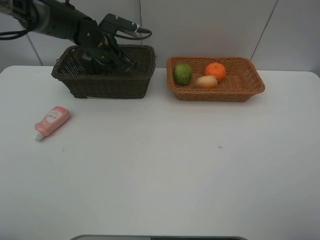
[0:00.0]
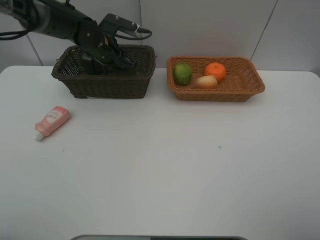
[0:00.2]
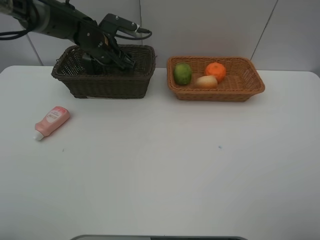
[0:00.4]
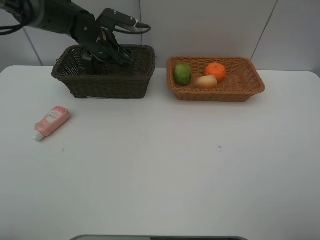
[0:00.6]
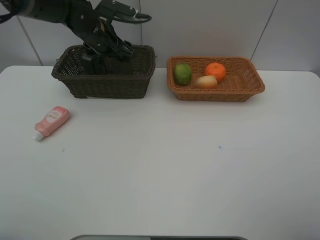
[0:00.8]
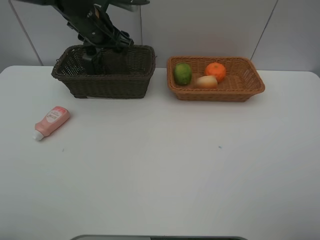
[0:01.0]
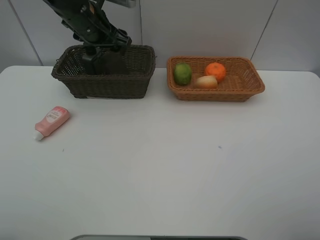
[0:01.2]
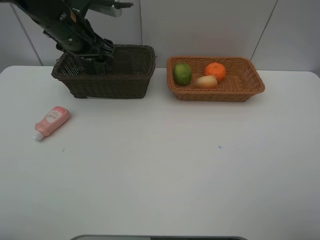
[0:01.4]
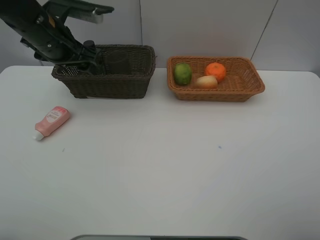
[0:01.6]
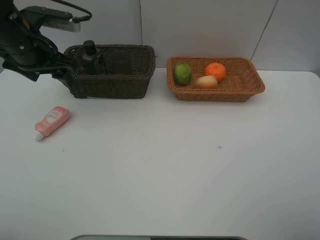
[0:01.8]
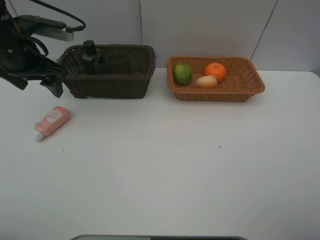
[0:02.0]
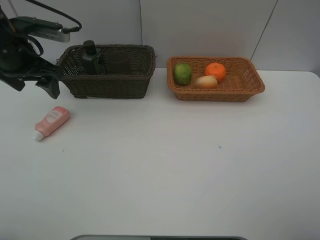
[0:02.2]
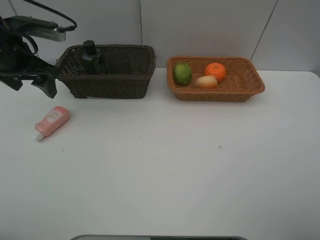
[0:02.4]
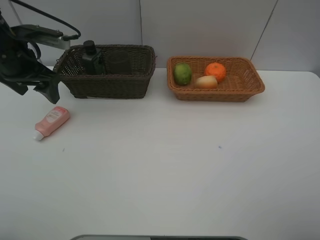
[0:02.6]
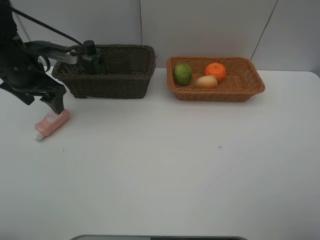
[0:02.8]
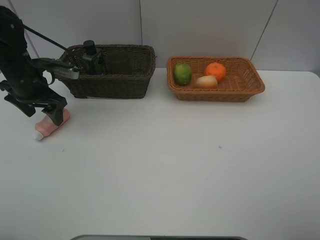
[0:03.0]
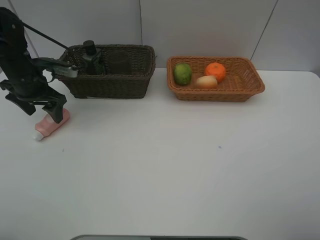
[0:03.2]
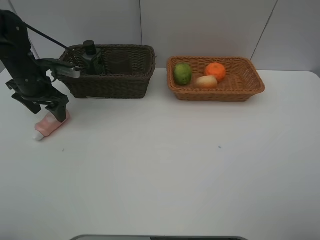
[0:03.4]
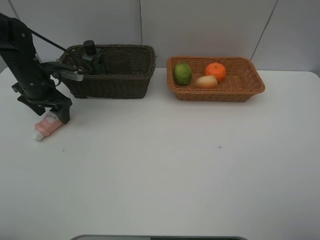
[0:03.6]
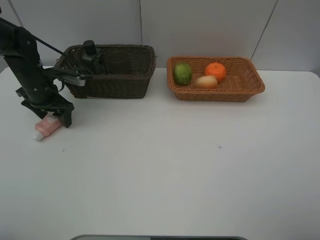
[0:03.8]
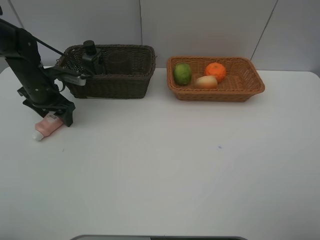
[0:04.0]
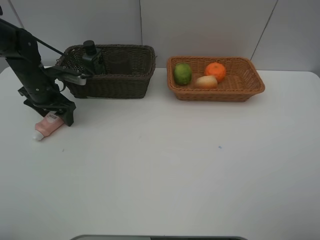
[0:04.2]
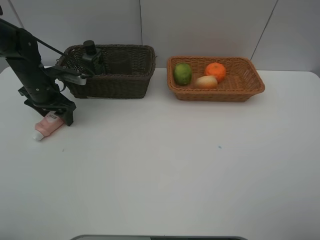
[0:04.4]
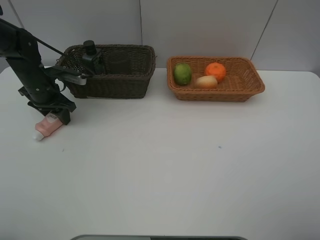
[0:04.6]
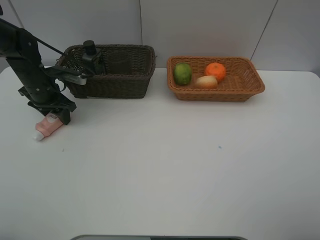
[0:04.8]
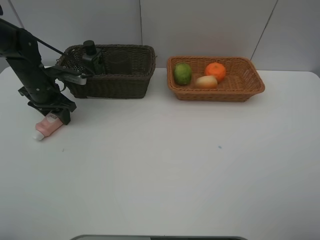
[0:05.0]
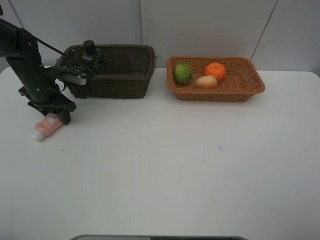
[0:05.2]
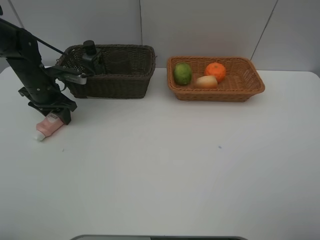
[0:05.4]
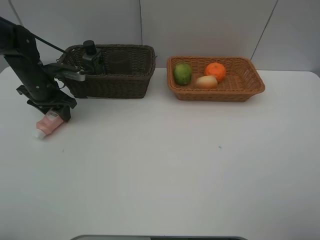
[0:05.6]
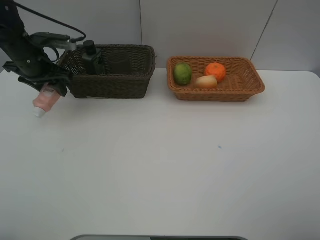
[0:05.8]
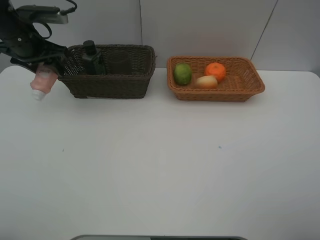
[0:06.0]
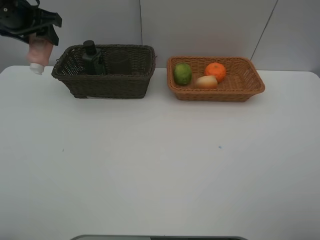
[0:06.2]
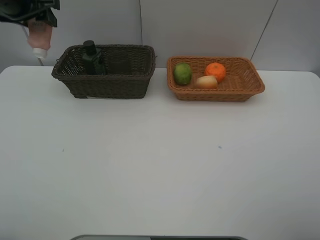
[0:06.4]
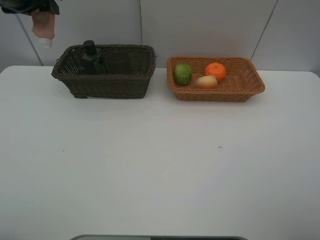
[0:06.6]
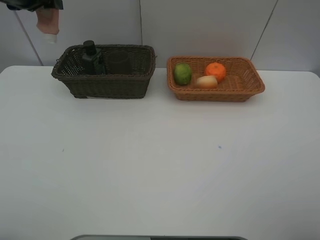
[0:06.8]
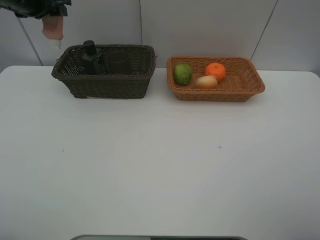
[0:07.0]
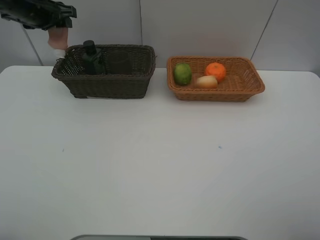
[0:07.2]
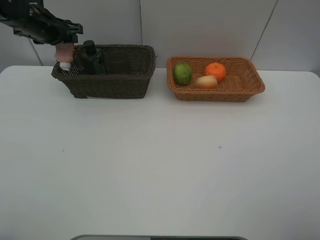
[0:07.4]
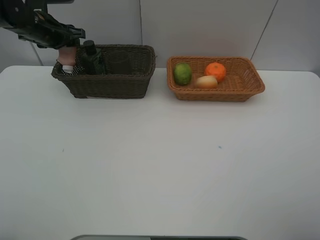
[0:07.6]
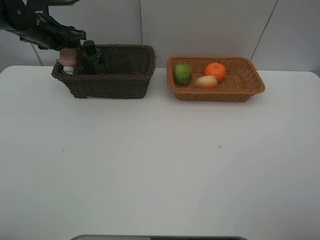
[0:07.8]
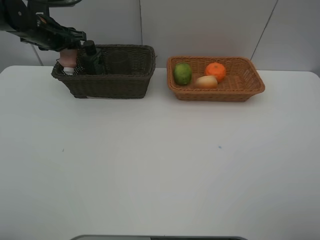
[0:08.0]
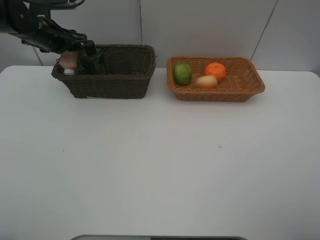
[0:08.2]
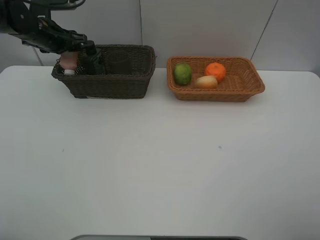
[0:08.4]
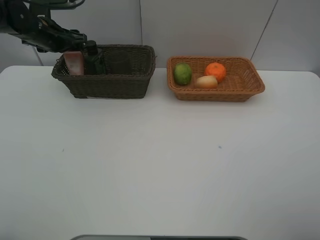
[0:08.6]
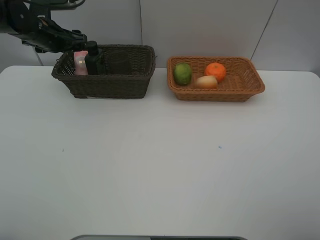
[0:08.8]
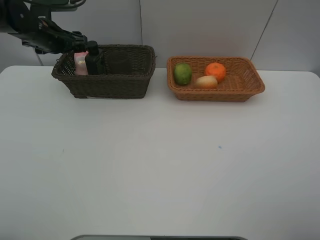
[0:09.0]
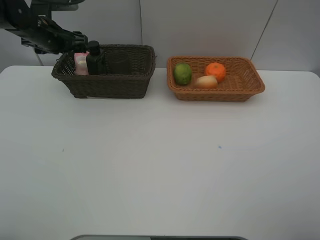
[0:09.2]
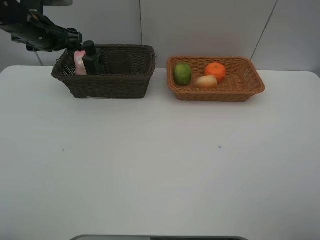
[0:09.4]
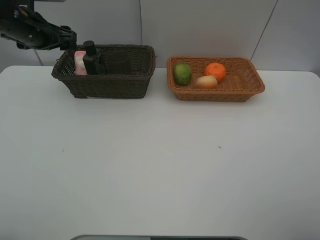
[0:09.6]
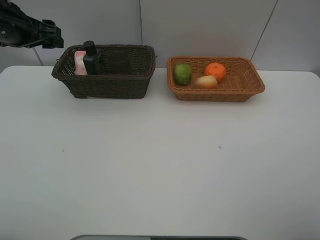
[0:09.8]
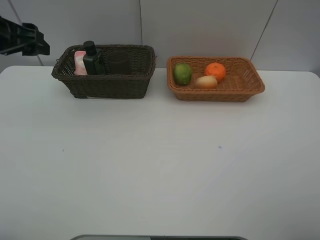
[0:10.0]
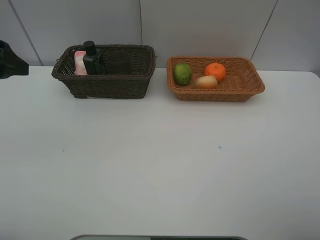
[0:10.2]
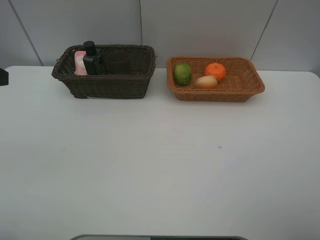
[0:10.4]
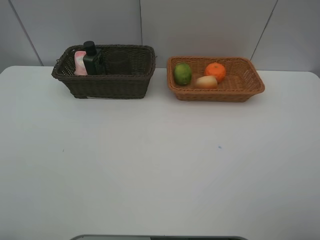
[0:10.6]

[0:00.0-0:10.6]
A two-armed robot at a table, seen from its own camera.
Task of the whole recording: place multiple objects separately in different baskets.
0:00.0 to 0:01.6: The left gripper heads backward, upward and to the left, covering some 15 cm, and opens.
0:01.6 to 0:03.0: The left gripper heads downward and to the left, covering about 10 cm.
0:03.0 to 0:04.6: The left gripper ends up approximately 5 cm from where it was.
0:04.6 to 0:06.0: The left gripper heads upward, covering roughly 15 cm.
0:06.0 to 0:07.6: The left gripper shifts about 5 cm forward, and travels upward and back again, some 5 cm each way.
0:07.6 to 0:09.0: Both grippers stay put.
0:09.0 to 0:10.6: The left gripper goes approximately 35 cm backward.

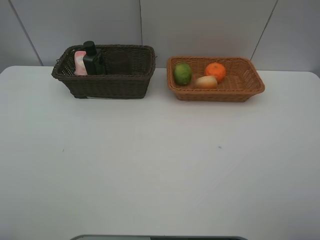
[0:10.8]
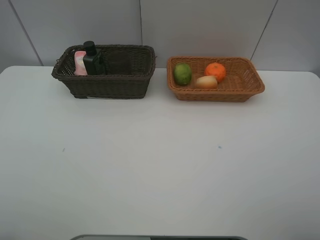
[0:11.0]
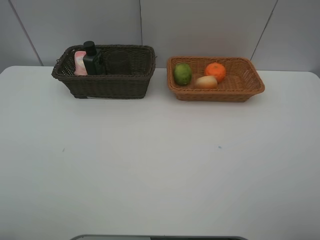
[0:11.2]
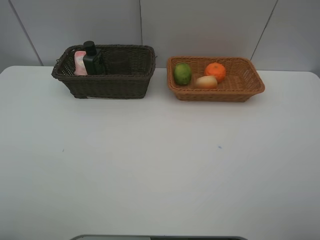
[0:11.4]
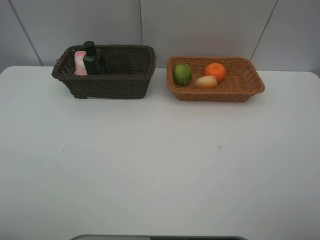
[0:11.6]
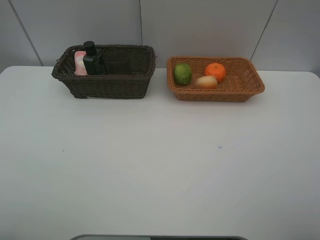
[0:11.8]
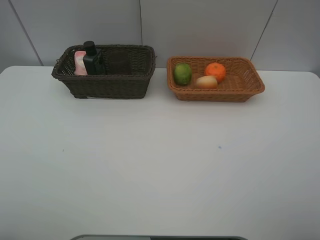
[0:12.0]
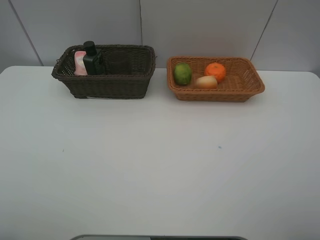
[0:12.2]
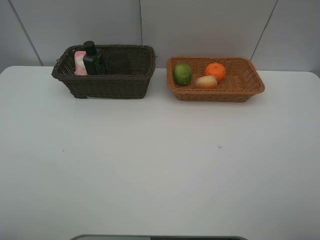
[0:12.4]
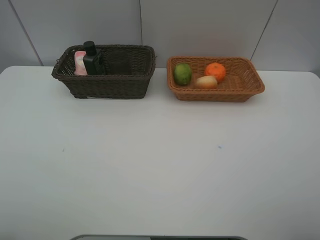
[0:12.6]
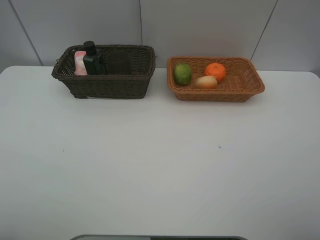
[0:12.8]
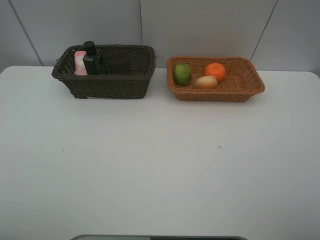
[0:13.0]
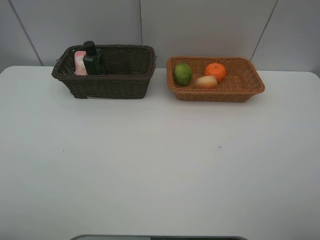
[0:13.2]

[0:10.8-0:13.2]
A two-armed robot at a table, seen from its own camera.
Task of the whole recording: place multiple objects separately in different baskets.
0:12.0 to 0:13.2: Neither gripper changes place.
